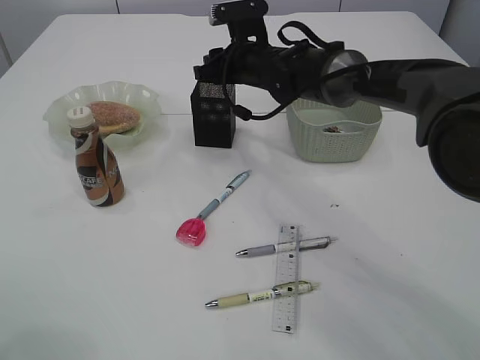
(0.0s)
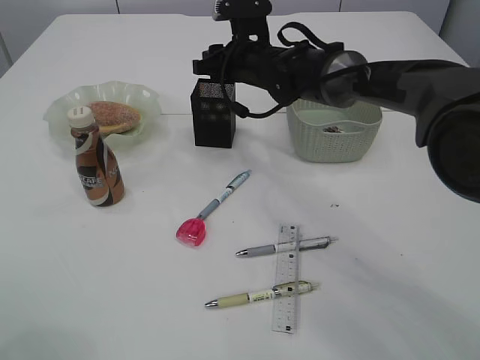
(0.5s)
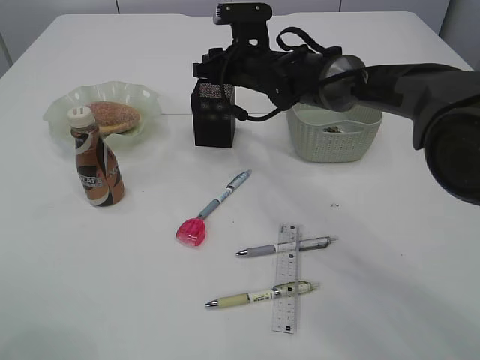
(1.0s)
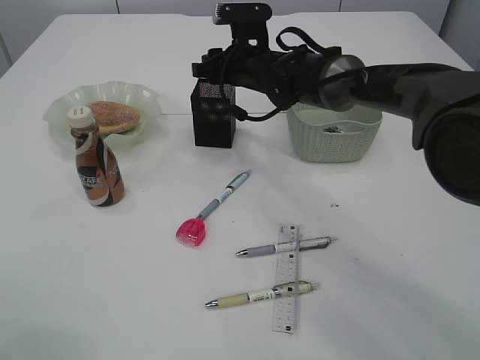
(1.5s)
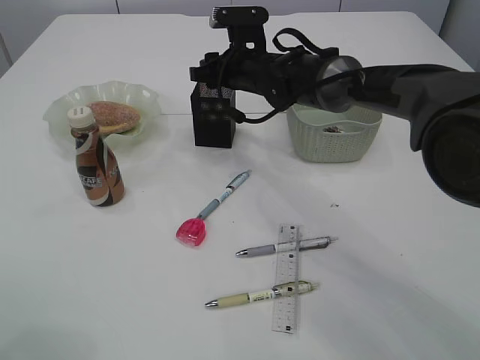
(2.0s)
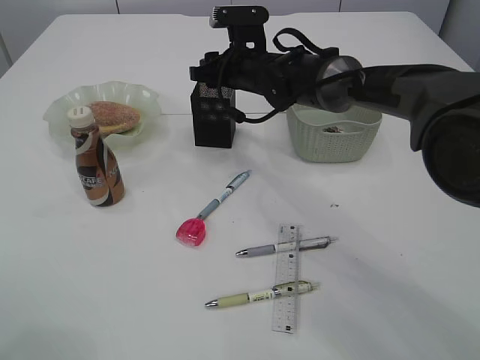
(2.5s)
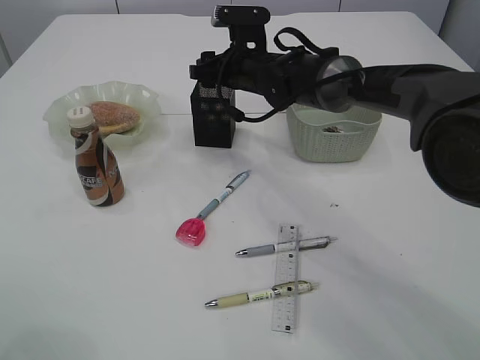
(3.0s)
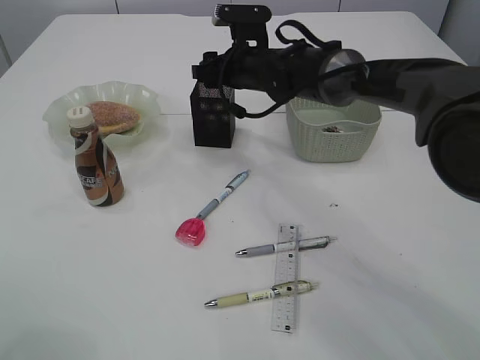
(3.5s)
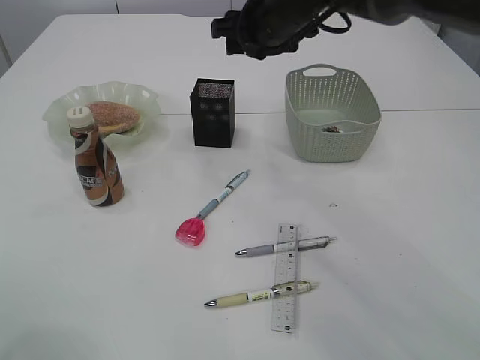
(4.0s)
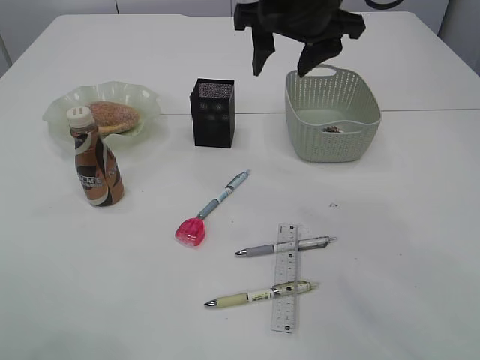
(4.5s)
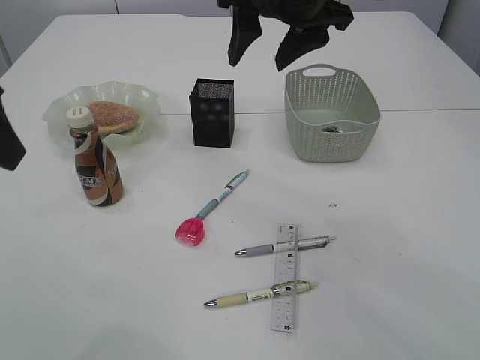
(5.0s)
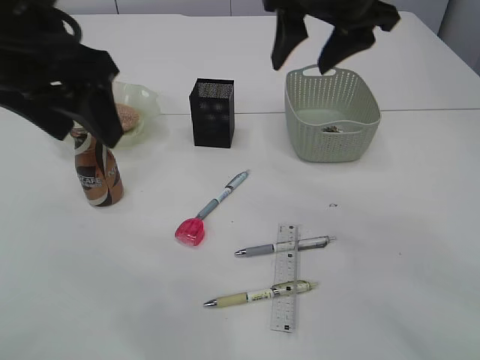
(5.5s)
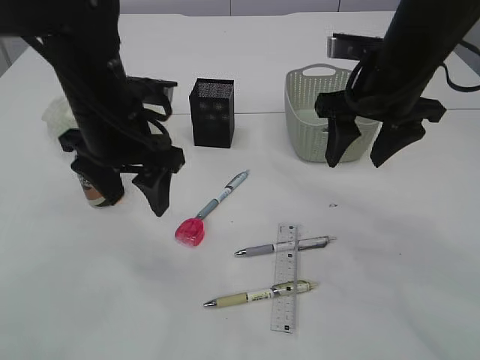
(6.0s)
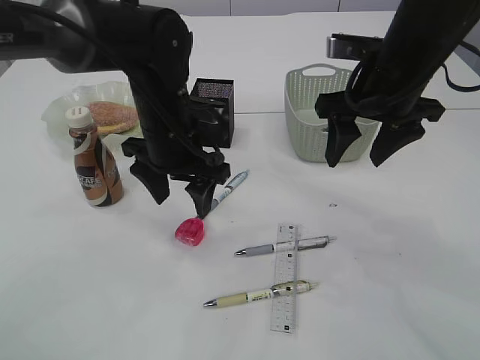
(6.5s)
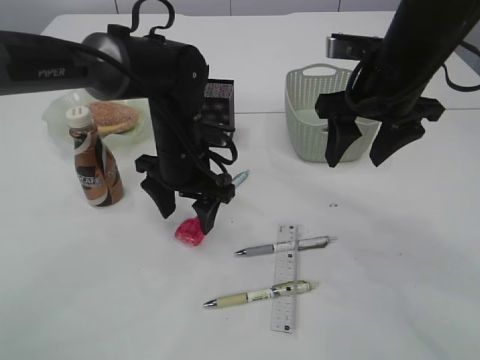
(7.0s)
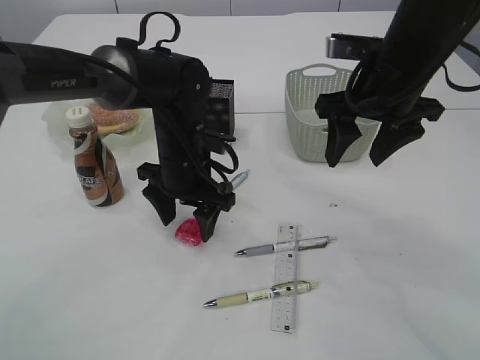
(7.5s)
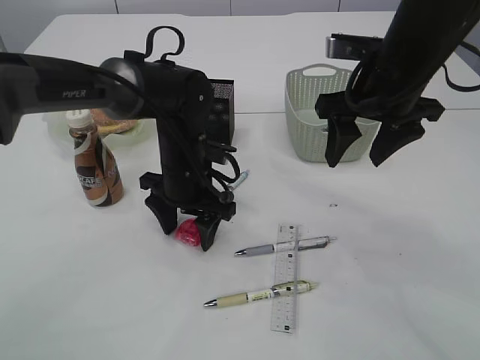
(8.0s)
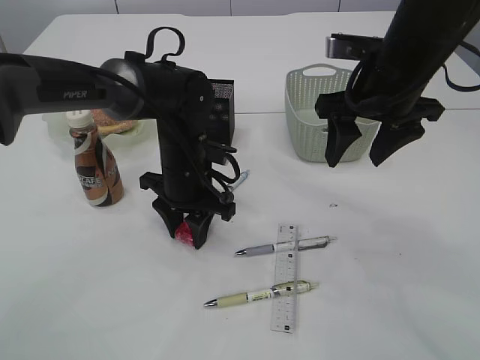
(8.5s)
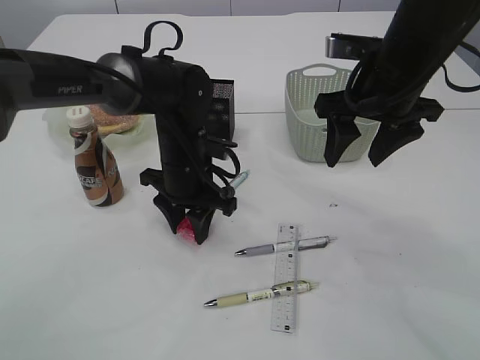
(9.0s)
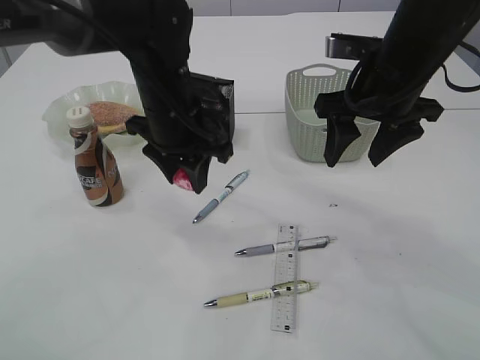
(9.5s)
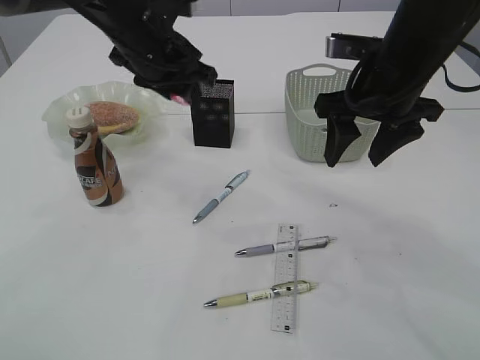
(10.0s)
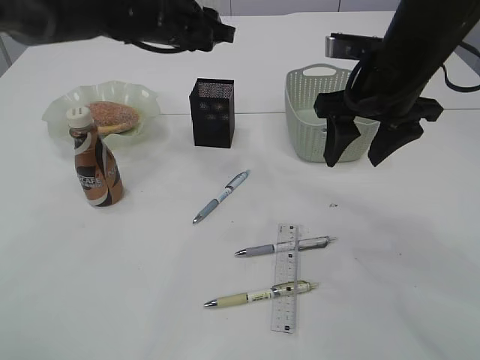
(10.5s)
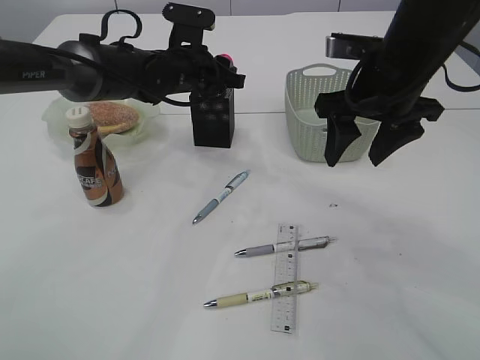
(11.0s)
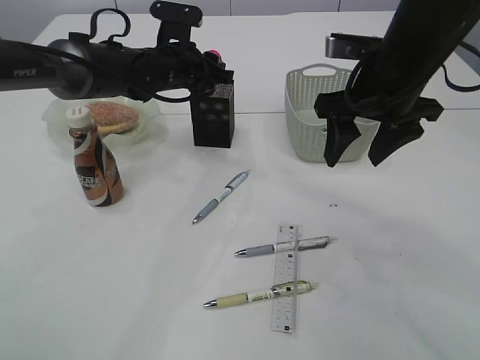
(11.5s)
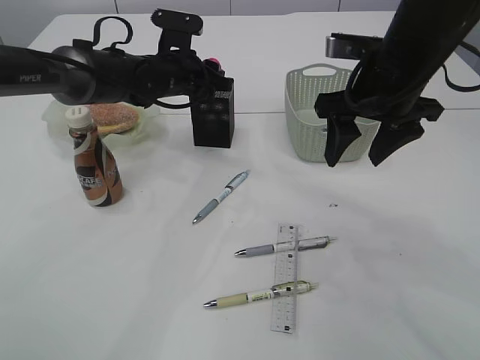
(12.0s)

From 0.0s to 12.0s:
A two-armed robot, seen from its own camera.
Step, from 0.0s to 3.0s: Place the blue pencil sharpener into the pen holder.
Step, from 3.5s to 9.5s: Pick up the red pencil sharpener.
From 0.0s to 2.0s: The grippers make only small movements.
From 2.0s to 4.0s: The right gripper travels upward by roughly 10 cm.
From 4.0s to 6.0s: The left gripper shifts about 20 cm to the right, forward and downward. Meanwhile the right gripper moves backward and to the right, roughly 15 cm.
From 6.0s to 8.0s: The left gripper shifts about 15 cm downward, to the right and forward.
From 8.0s to 10.0s: The left gripper goes approximately 15 cm upward, and closes up.
From 10.0s to 12.0s: The left gripper moves downward and forward, approximately 10 cm.

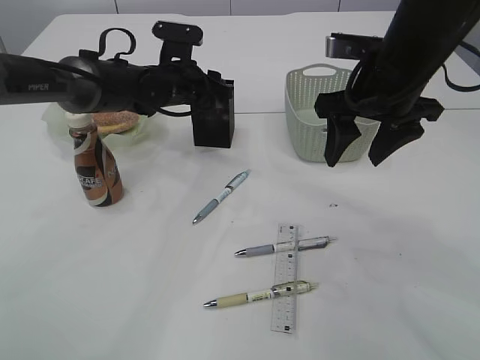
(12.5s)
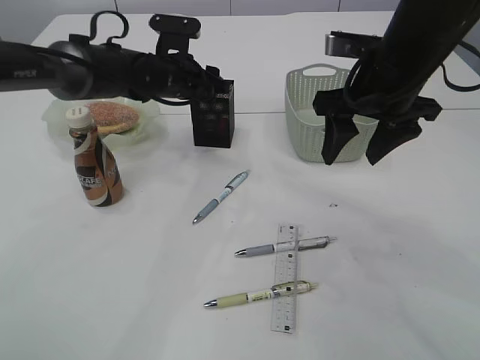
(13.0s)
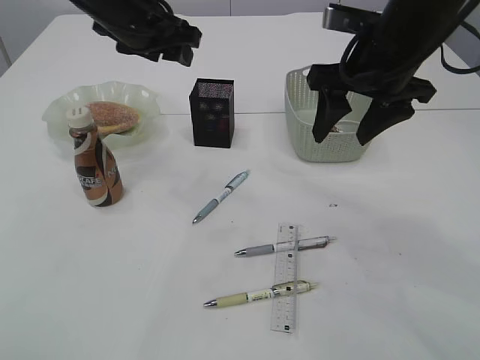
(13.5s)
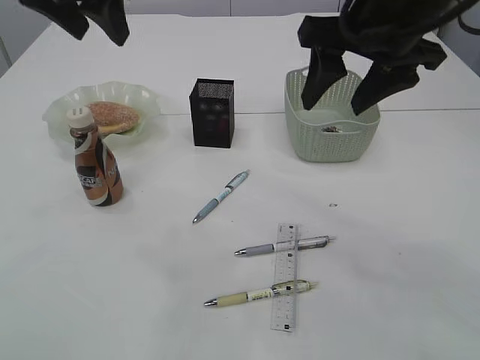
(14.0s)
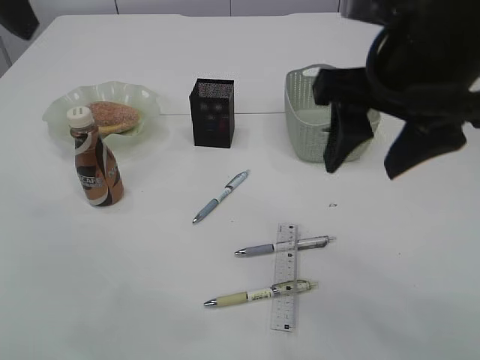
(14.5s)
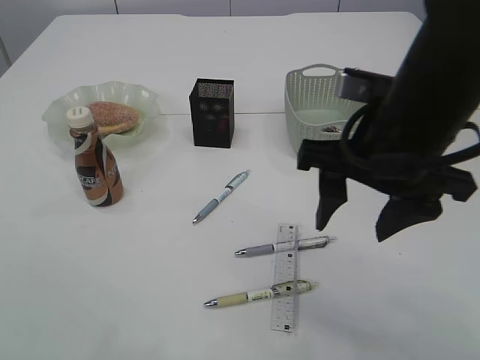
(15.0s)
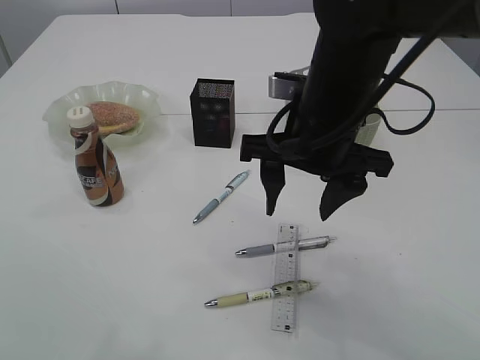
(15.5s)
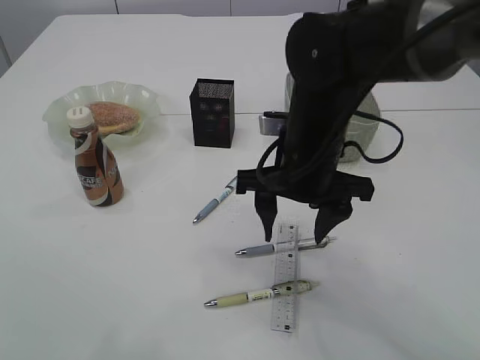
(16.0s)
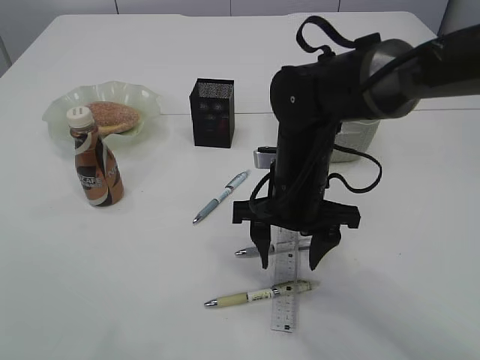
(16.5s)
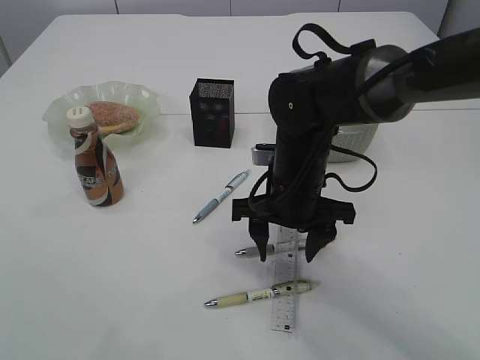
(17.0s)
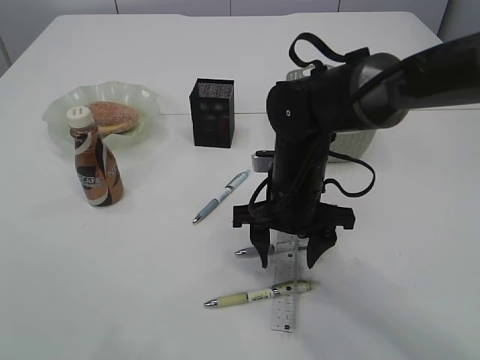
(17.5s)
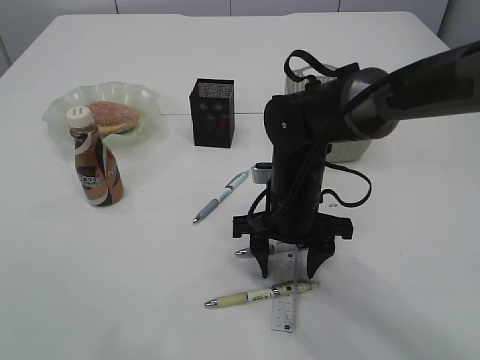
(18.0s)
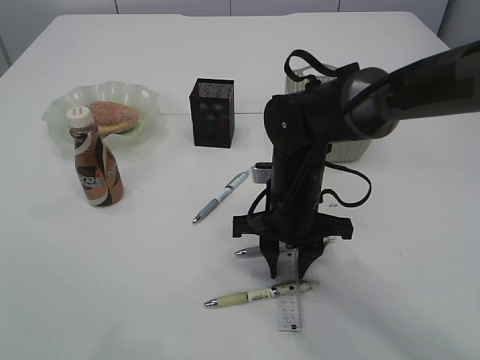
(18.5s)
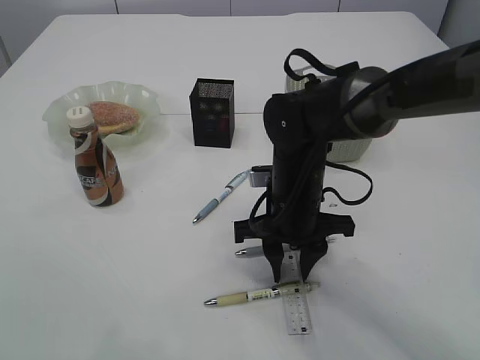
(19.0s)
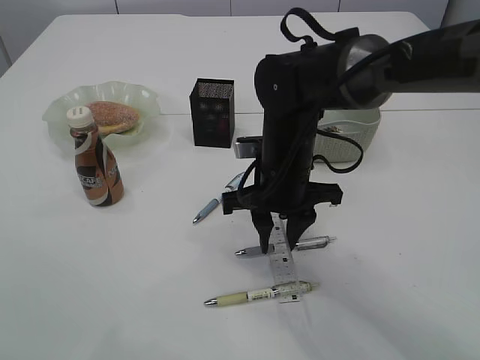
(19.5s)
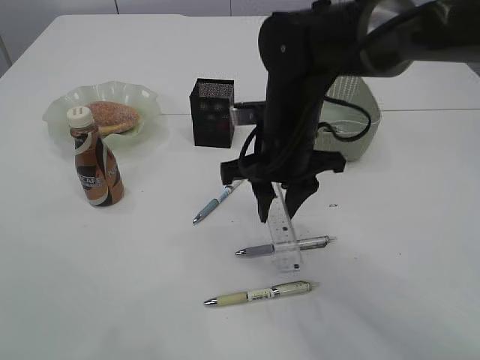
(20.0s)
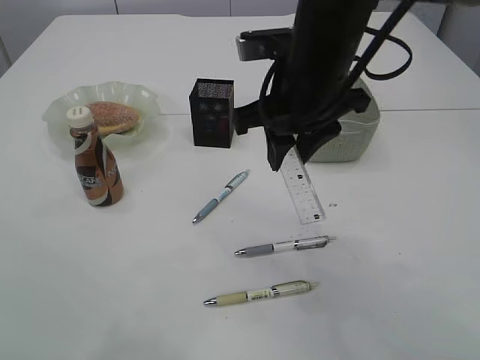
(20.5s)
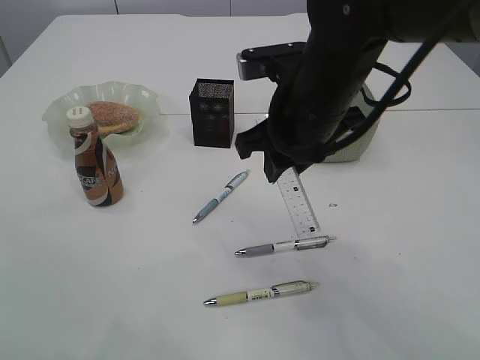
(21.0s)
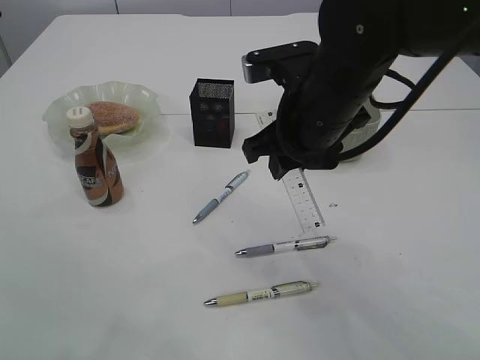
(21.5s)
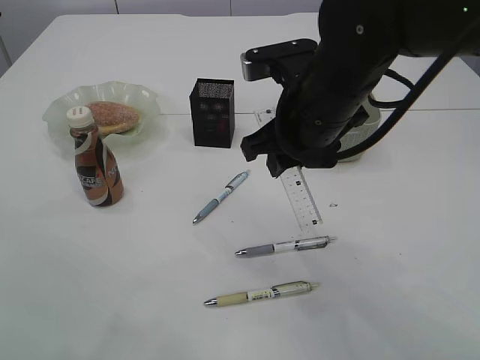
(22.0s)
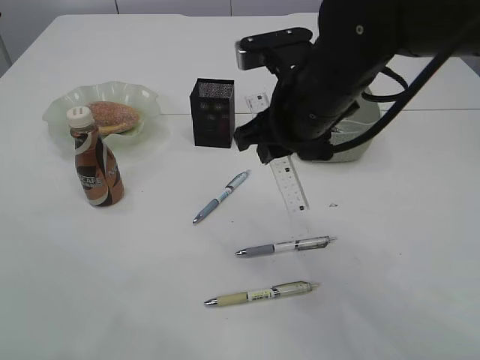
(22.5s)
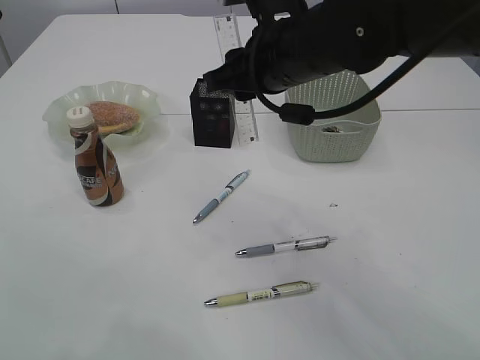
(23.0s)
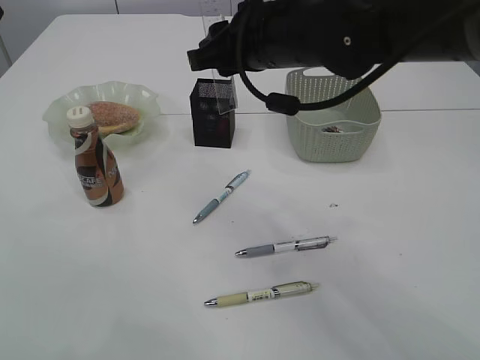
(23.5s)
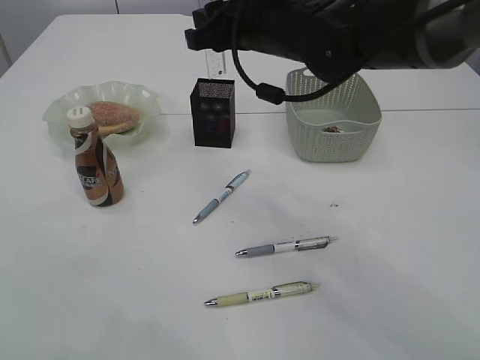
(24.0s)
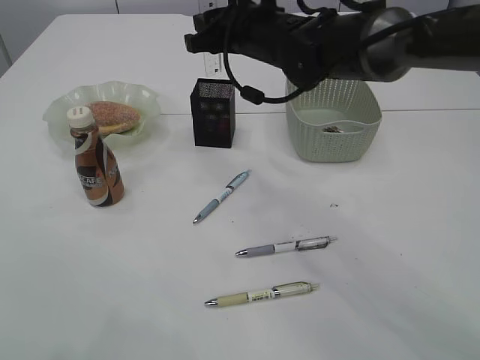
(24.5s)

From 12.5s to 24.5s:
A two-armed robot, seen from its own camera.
Step, from 13.5s to 20.5s: pick up the ruler.
From 12.5s to 14.5s: The left gripper is displaced upward, backward and to the left by about 35 cm. The right gripper is displaced backward and upward by roughly 10 cm.
From 14.5s to 16.5s: The left gripper moves backward, some 5 cm; the right gripper goes about 20 cm downward.
From 16.5s to 18.5s: The right gripper closes up.
From 18.5s to 20.5s: The right gripper travels upward by some 15 cm.
From 22.5s to 24.5s: The right gripper goes about 15 cm forward.

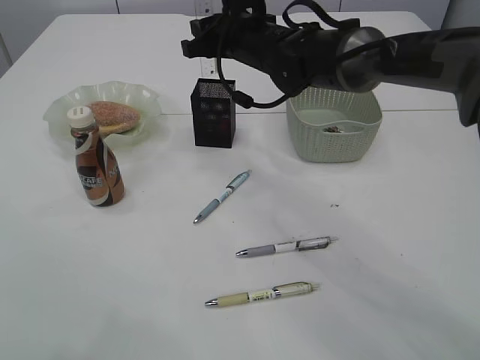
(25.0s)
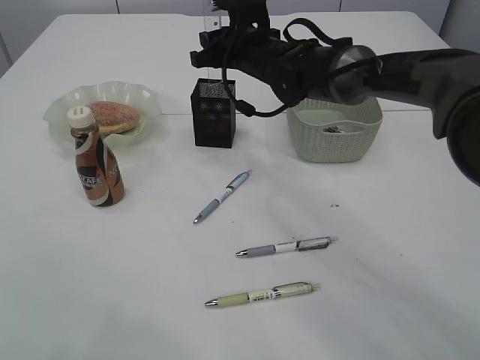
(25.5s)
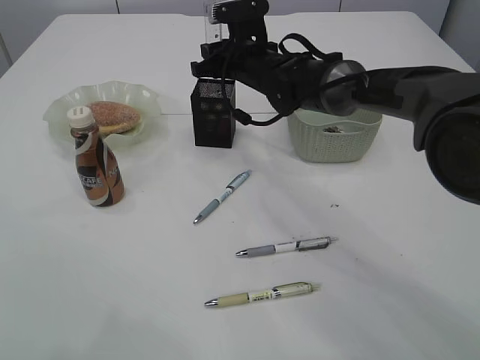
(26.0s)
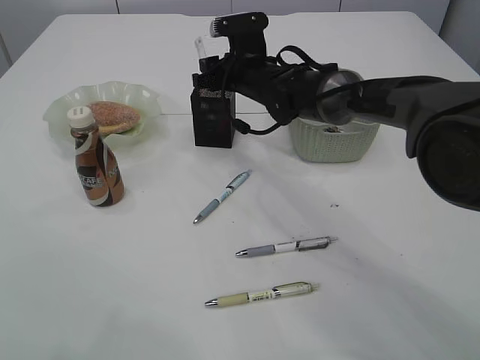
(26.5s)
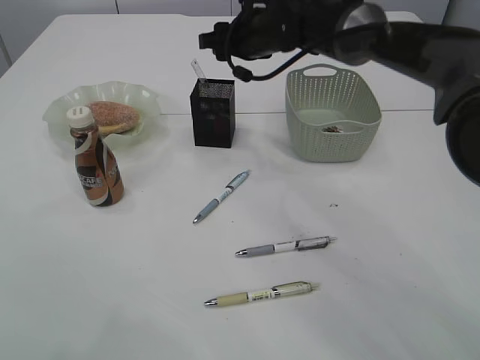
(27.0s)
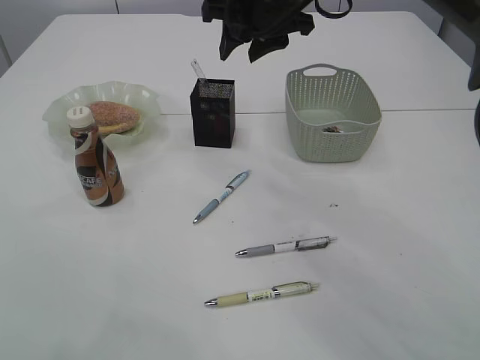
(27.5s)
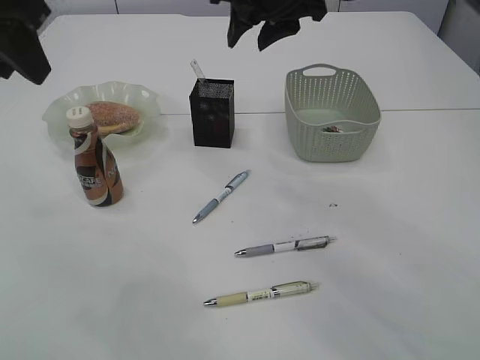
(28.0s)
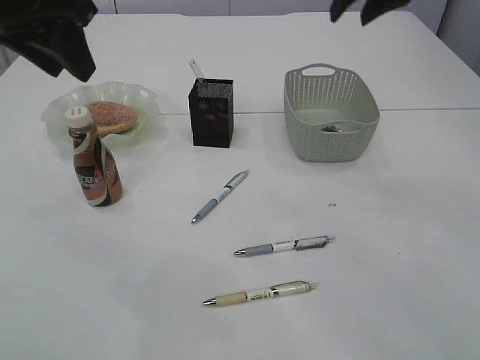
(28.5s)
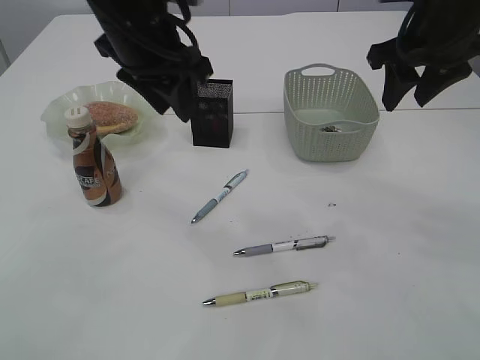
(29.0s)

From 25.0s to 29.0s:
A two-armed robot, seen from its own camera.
Step, from 25.0s to 27.0s: Place the ruler into the pen holder.
From 27.0s to 29.0s: The left gripper heads to the right, downward and forward, covering approximately 20 cm, while the right gripper moves to the right, backward and upward, some 25 cm.
